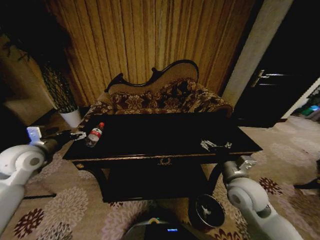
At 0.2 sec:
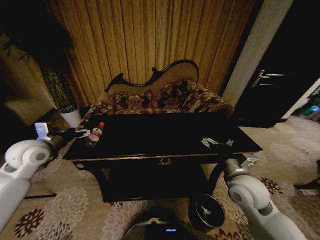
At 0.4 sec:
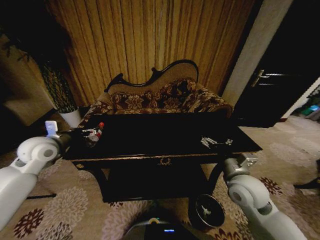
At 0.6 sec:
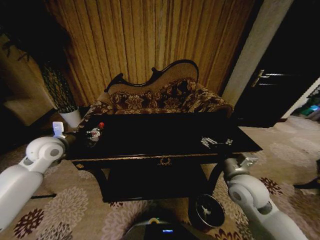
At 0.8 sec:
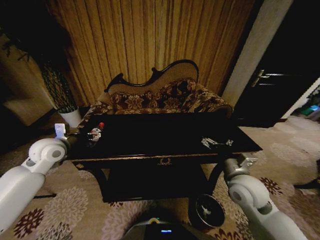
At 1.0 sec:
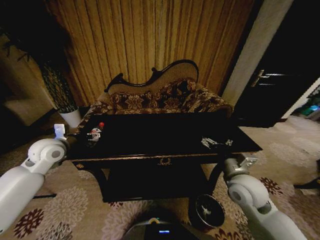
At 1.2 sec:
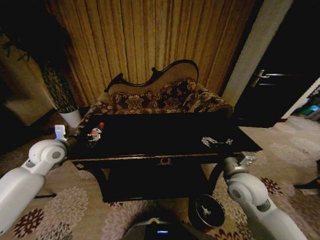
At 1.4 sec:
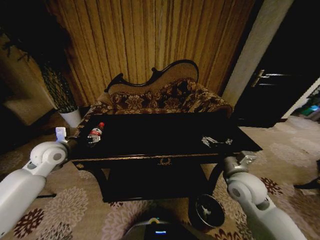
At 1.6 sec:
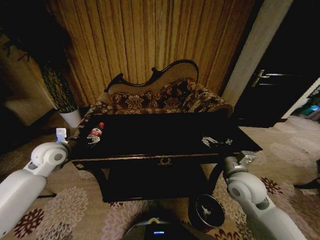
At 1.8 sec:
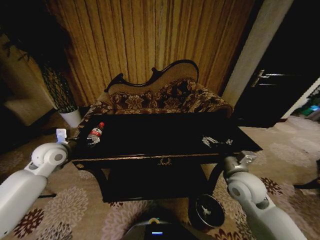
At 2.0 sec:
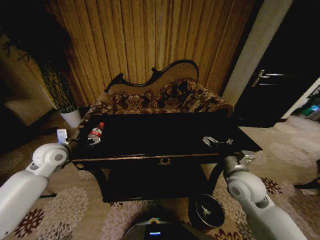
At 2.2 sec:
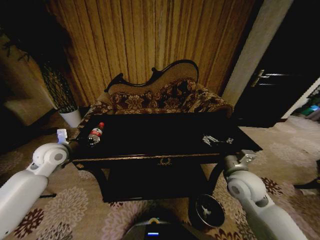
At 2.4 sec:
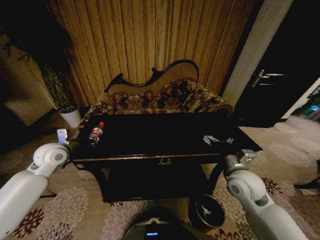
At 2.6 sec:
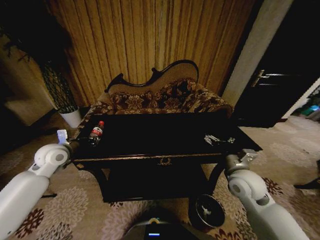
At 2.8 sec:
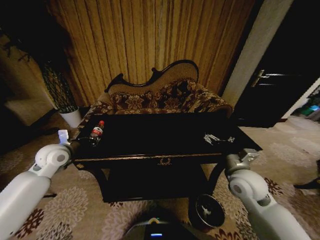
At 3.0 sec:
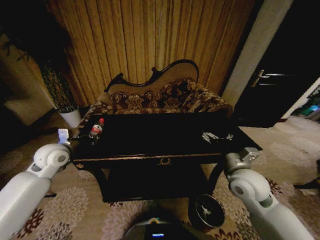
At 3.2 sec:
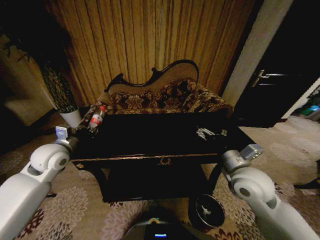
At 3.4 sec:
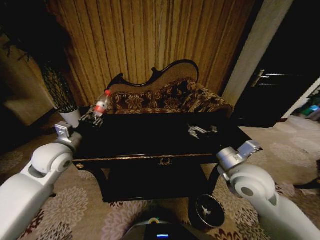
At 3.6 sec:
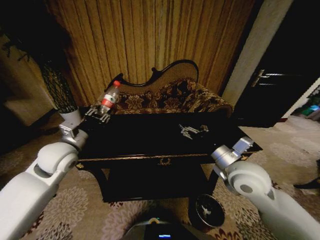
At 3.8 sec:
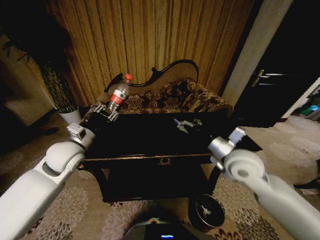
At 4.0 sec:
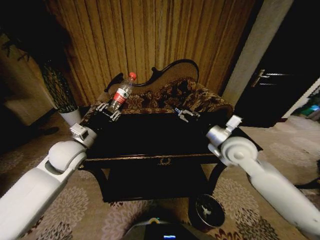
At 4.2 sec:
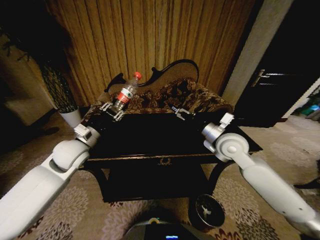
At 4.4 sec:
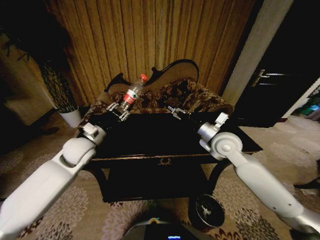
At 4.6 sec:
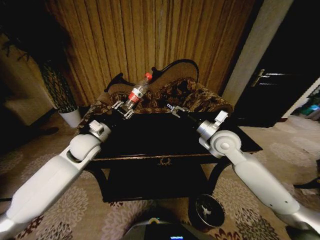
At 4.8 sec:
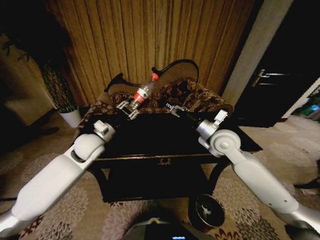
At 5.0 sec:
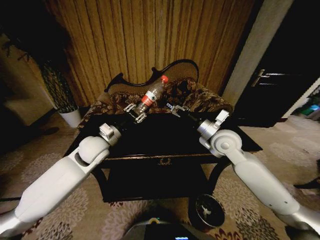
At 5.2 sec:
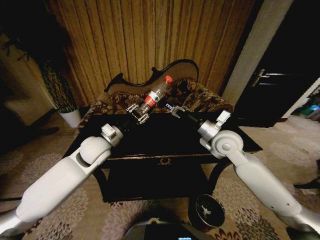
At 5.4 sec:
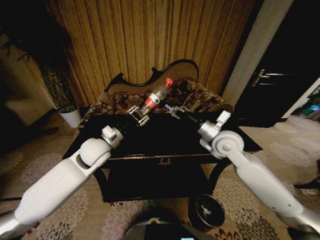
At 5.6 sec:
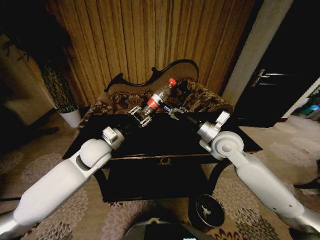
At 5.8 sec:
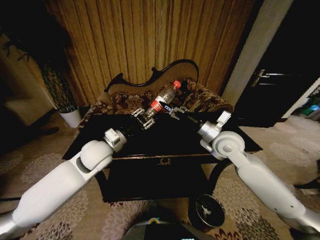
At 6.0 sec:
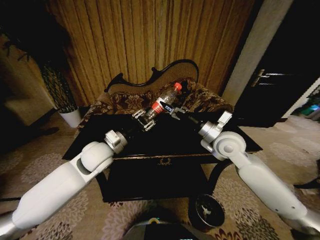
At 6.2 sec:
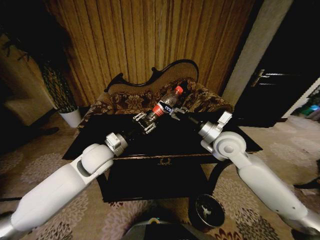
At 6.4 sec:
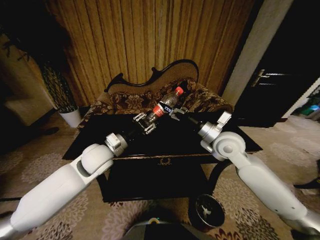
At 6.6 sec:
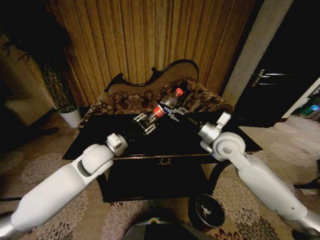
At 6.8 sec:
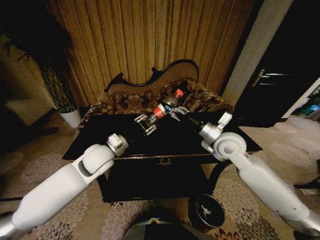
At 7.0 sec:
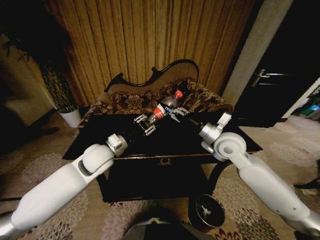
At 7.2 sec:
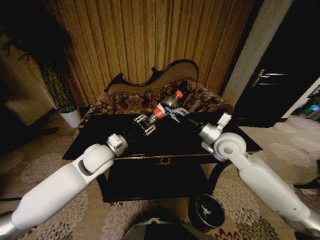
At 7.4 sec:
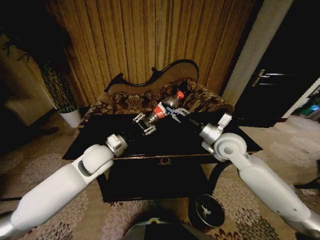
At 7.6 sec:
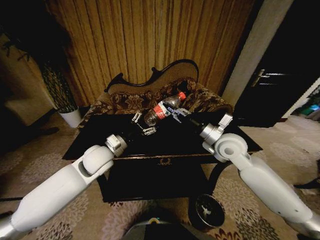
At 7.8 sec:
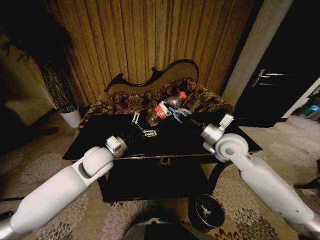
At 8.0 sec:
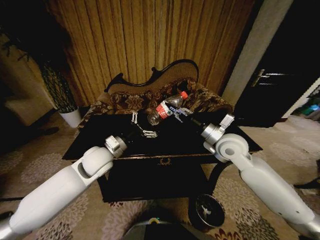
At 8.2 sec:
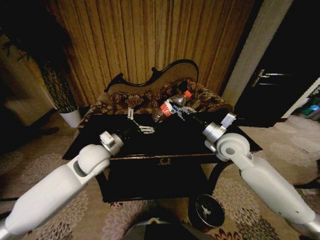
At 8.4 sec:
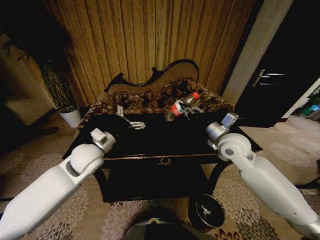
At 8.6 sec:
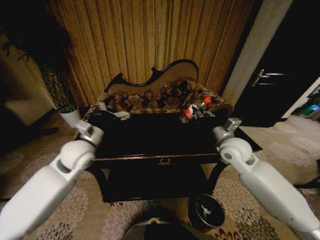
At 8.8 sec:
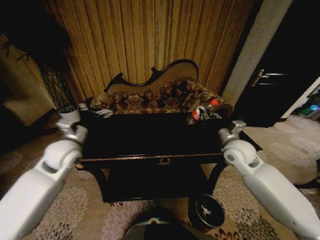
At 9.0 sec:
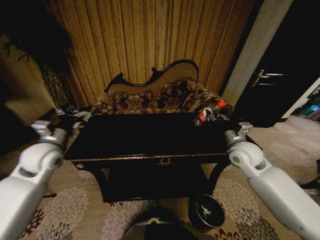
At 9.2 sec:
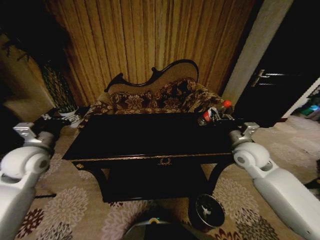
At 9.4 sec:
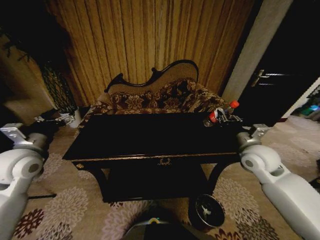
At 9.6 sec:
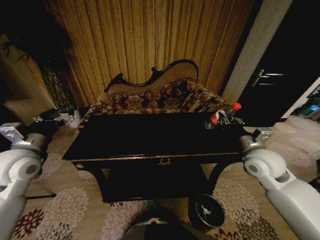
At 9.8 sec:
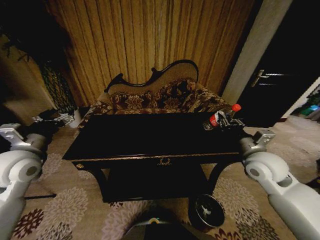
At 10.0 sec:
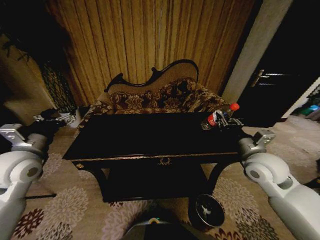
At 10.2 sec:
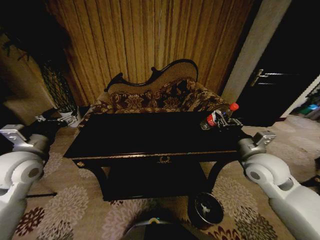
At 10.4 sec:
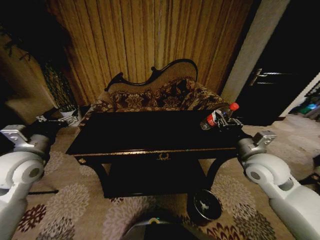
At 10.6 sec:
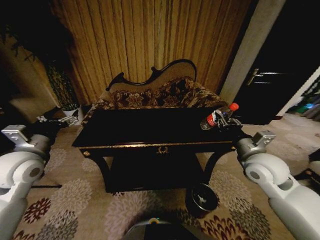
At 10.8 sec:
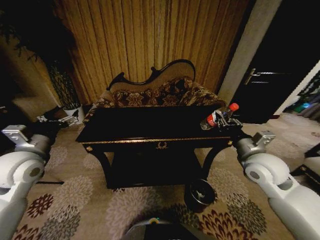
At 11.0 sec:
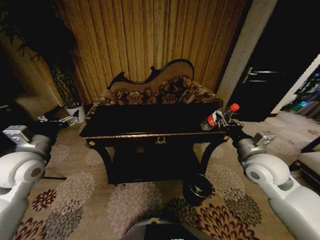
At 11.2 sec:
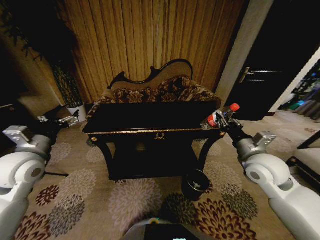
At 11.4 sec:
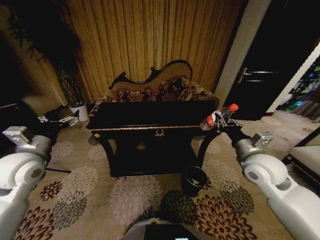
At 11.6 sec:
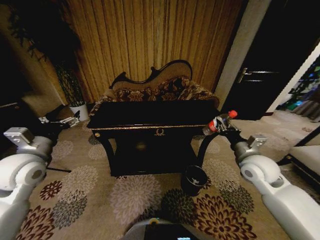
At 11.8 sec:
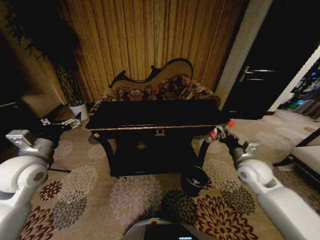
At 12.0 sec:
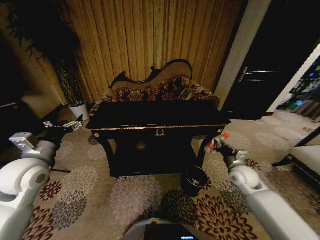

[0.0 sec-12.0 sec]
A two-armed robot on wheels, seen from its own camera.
Task of the whole recording: Move to the front of the table and place the trash on the table into the trash bin.
0.0 sec to 1.6 sec: The left gripper moves approximately 5 cm.
1.6 sec to 3.0 sec: The left gripper closes.
3.0 sec to 4.4 sec: The right gripper travels forward and upward by approximately 15 cm; the left gripper goes roughly 10 cm to the right.
4.4 sec to 6.0 sec: The left gripper shifts approximately 10 cm to the right.
6.0 sec to 7.6 sec: The right gripper closes. The left gripper opens up.
7.6 sec to 9.0 sec: The left gripper heads to the left, covering about 15 cm, and opens up, while the right gripper is displaced to the right by some 5 cm.
9.0 sec to 10.4 sec: Both grippers travel together backward, some 5 cm.
10.4 sec to 12.0 sec: The right gripper heads downward, covering about 15 cm.

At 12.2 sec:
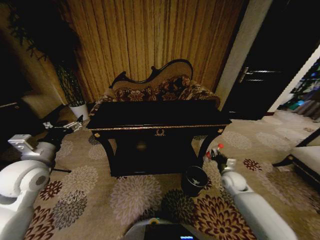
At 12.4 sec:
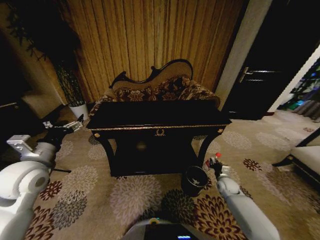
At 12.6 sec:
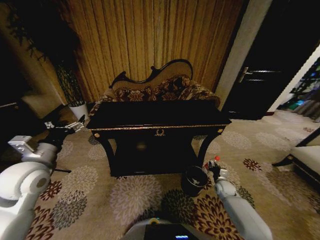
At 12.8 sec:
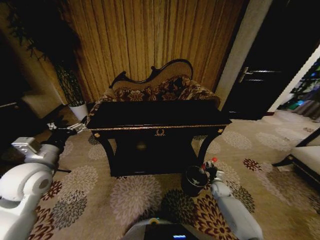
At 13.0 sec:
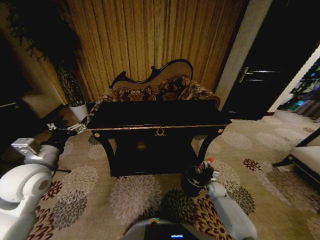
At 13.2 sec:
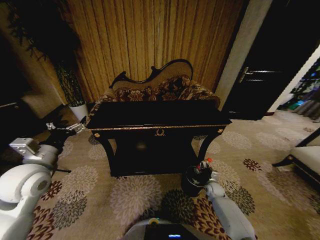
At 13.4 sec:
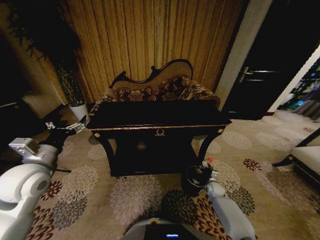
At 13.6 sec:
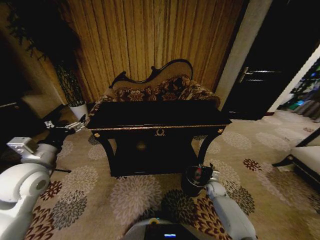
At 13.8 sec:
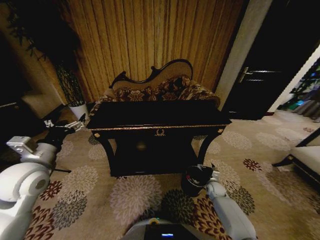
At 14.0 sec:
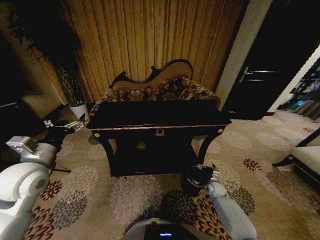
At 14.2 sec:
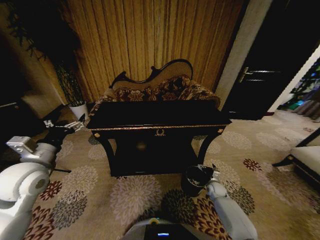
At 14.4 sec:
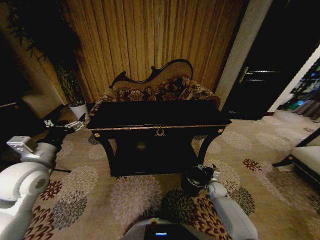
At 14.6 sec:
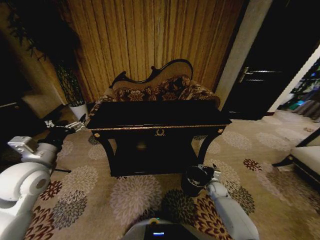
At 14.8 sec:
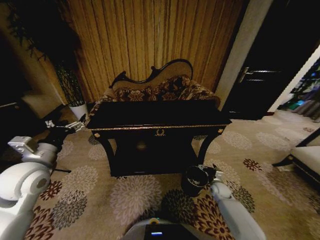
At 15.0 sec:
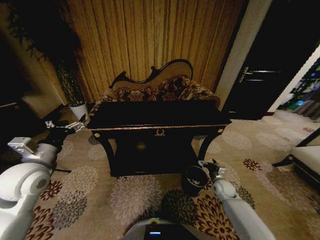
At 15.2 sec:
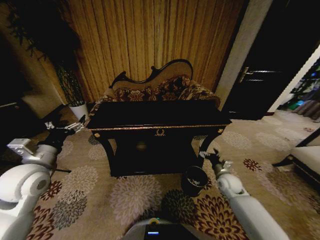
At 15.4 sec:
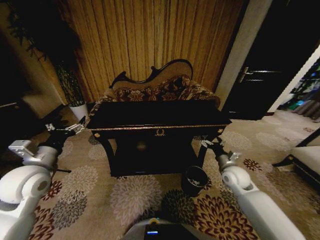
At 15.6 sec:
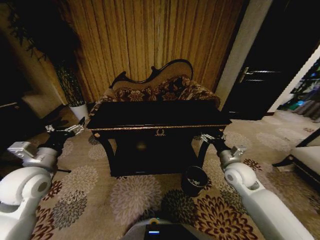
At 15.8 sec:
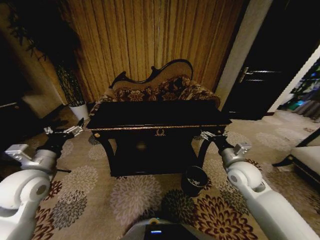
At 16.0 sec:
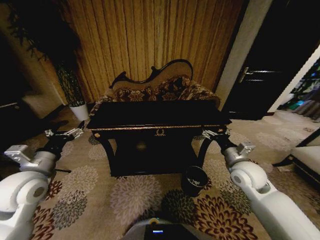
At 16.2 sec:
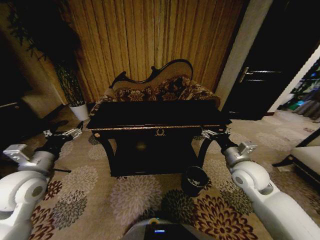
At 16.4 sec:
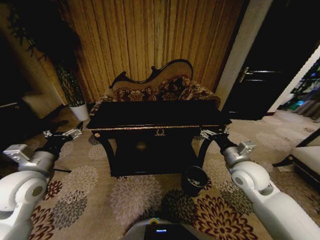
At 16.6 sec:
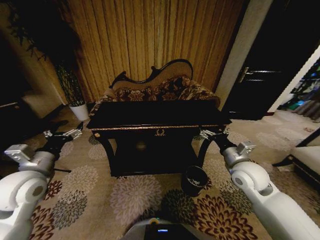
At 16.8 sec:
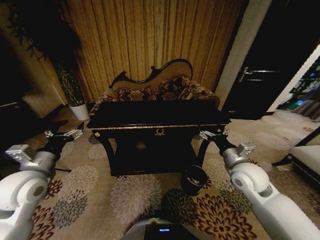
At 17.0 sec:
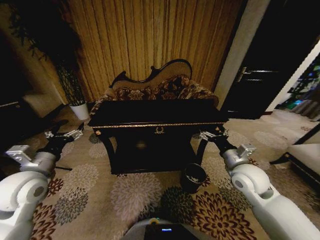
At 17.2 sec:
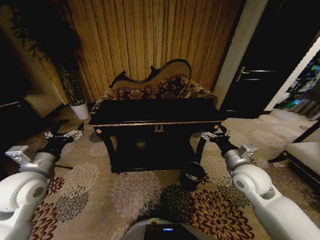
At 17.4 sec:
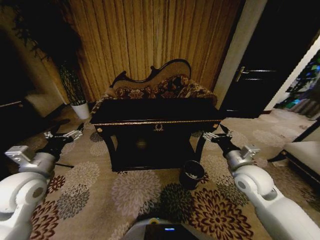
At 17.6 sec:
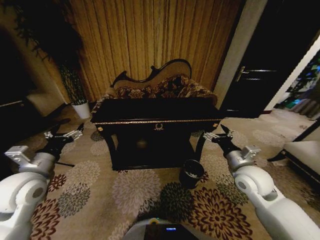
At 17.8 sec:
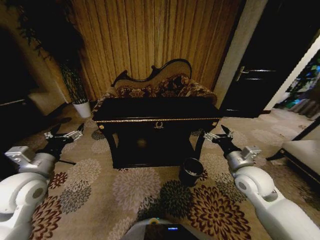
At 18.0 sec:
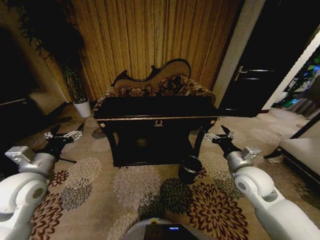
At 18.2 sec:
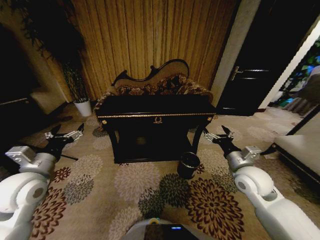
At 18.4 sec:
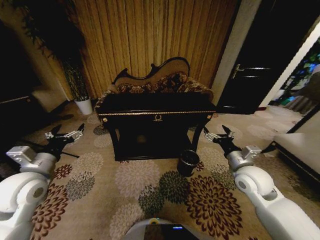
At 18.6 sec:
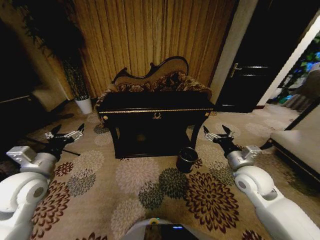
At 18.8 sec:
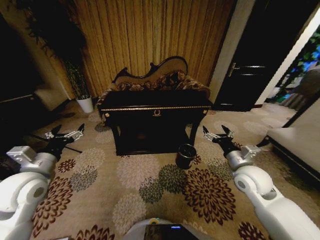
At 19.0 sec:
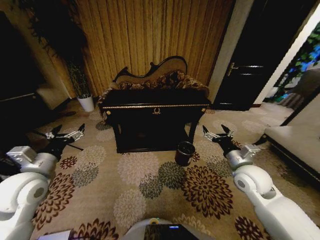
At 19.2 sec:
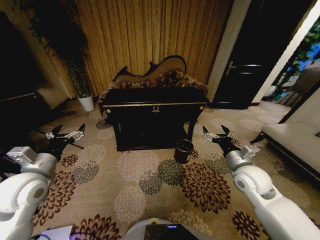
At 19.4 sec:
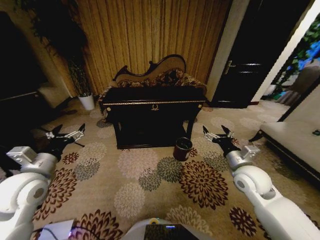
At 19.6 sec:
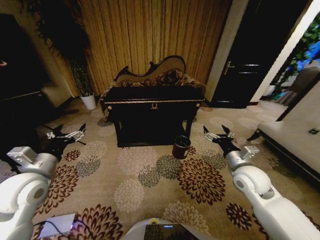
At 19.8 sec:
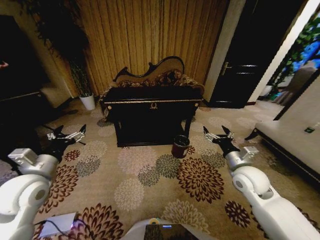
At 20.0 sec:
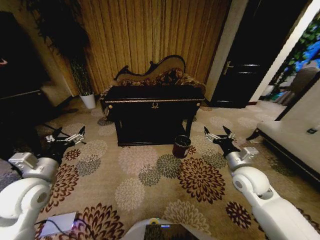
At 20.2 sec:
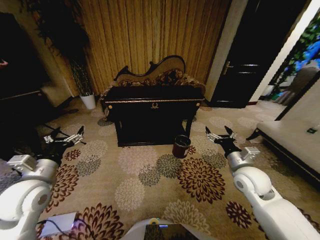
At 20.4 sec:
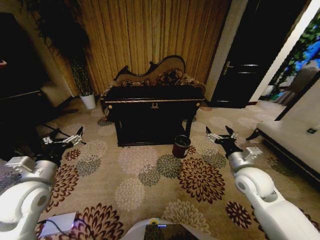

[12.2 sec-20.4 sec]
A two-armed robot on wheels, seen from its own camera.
Task of the whole recording: Move to the front of the table and place the trash on the table into the trash bin.
12.2 sec to 13.8 sec: The right gripper goes roughly 15 cm downward, and opens up.
13.8 sec to 15.4 sec: The right gripper is displaced upward by roughly 20 cm.
15.4 sec to 17.2 sec: The right gripper heads upward, covering some 10 cm.
